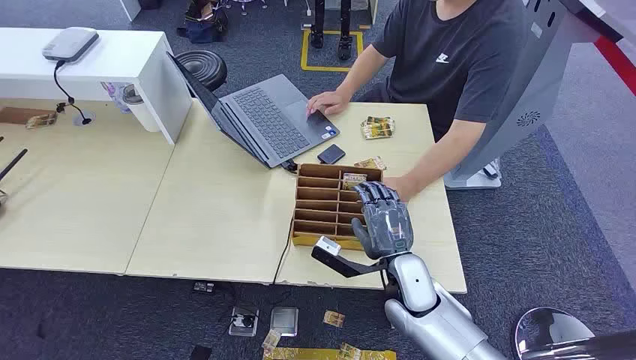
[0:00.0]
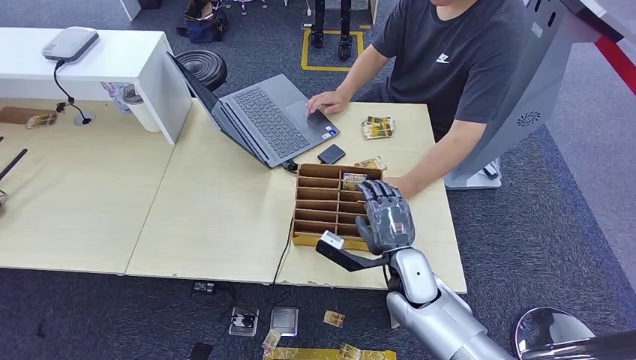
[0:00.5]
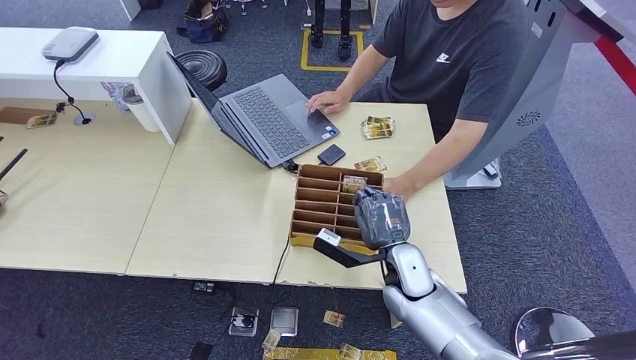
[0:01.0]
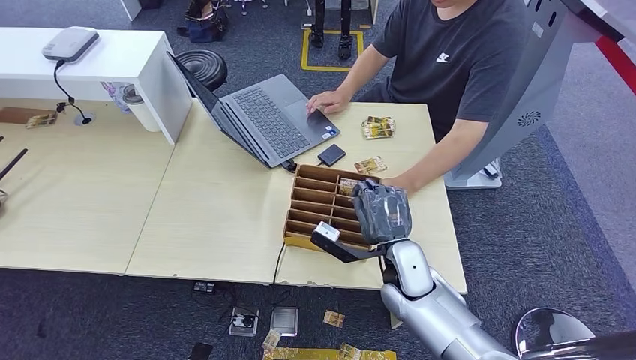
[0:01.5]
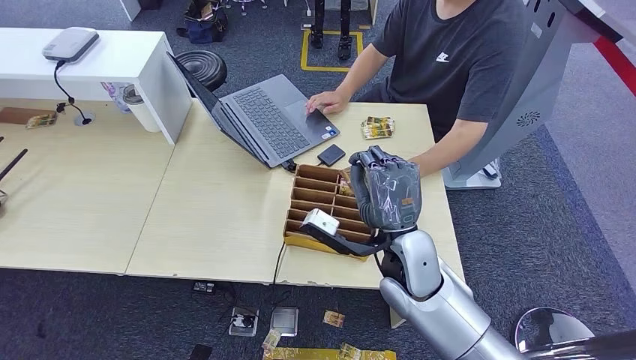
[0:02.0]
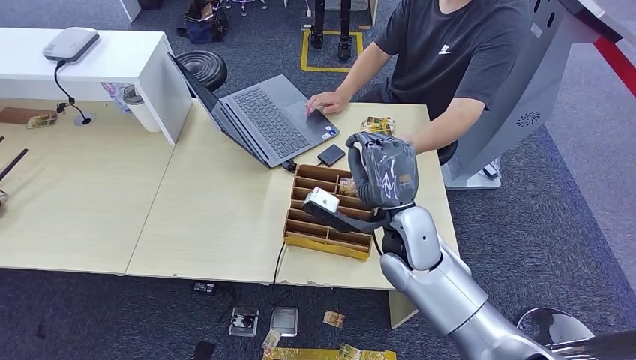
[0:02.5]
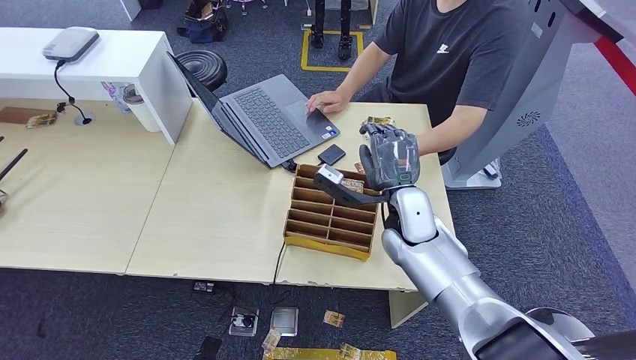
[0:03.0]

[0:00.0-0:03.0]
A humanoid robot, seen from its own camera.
Step, 0:00.0 to 0:01.5: Pick up the key card from the card box.
Step, 0:02.0 to 0:03.0: Hand the key card to the target.
0:01.5 to 0:03.0: The right hand travels upward and forward by approximately 10 cm.

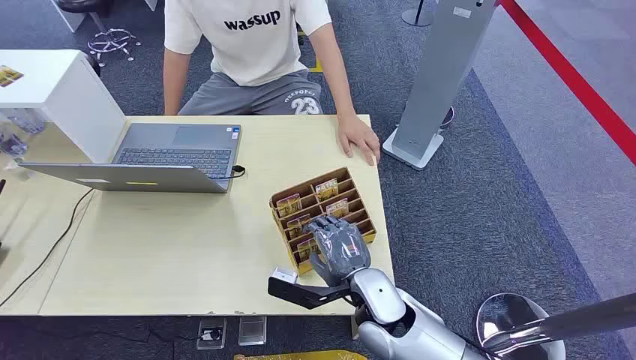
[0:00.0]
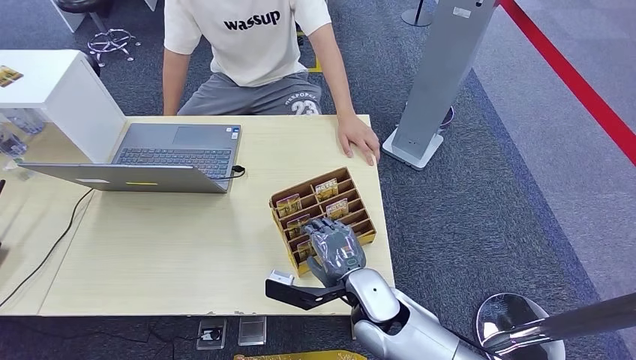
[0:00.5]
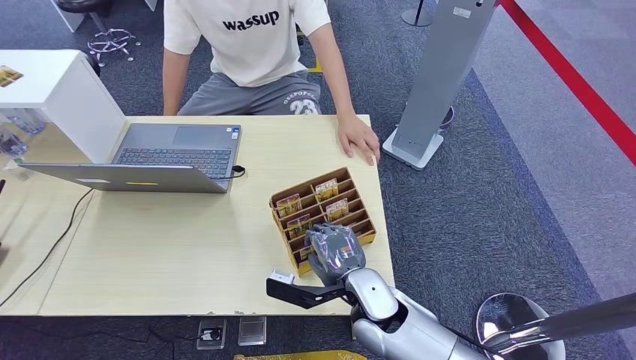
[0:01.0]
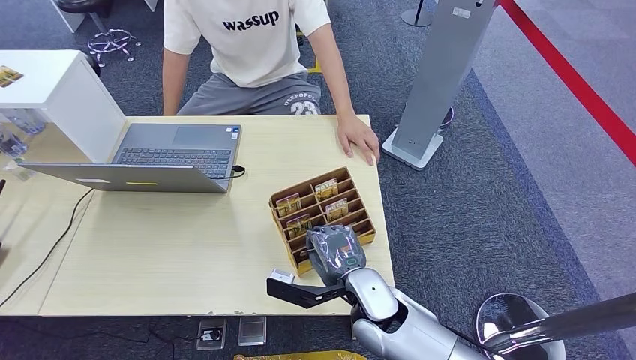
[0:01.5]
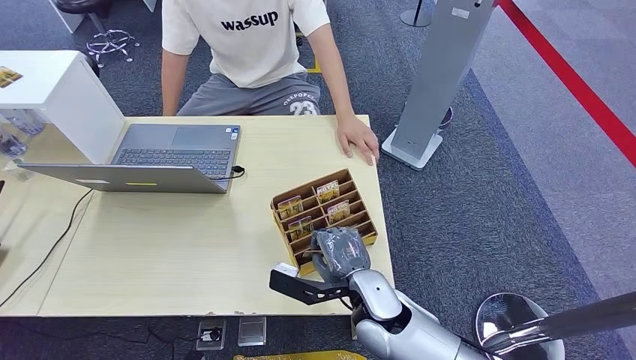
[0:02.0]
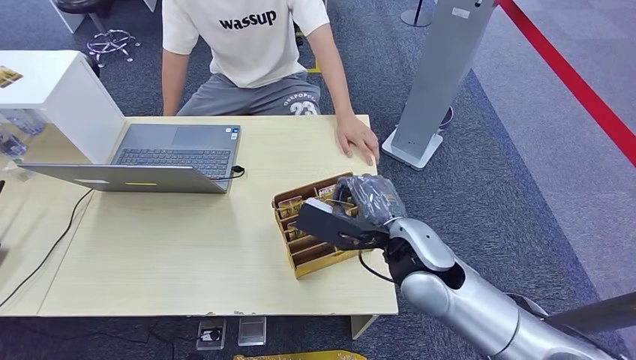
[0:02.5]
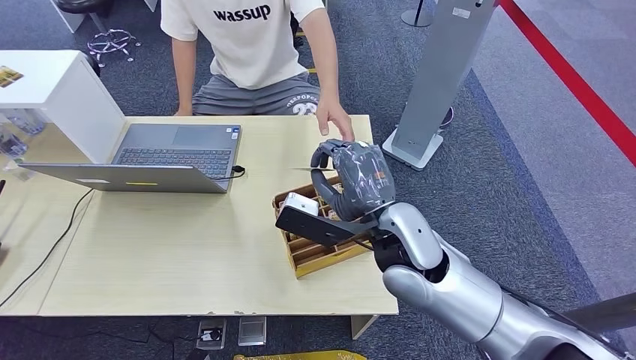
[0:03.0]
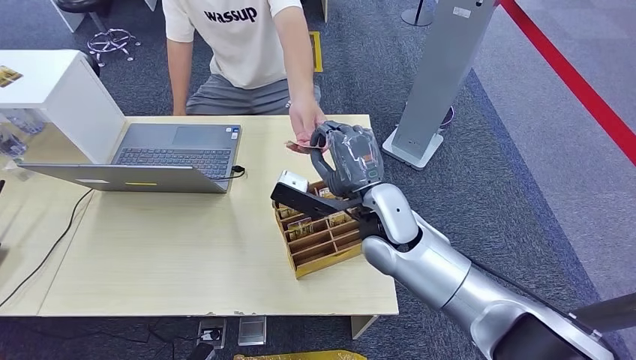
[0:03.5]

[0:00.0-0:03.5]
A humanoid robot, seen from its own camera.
Step, 0:00.0 to 0:02.5: Pick up the key card from the card box.
Step, 0:03.0 to 0:03.5: Hand the key card to the target.
0:02.0 to 0:03.5: The right hand heads upward and forward, covering roughly 15 cm.
